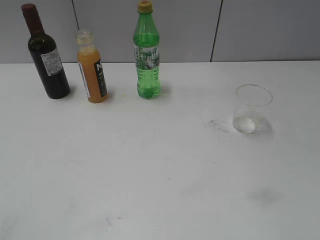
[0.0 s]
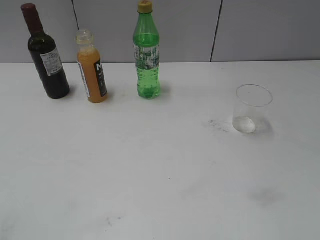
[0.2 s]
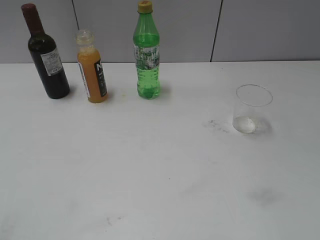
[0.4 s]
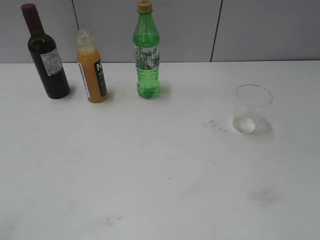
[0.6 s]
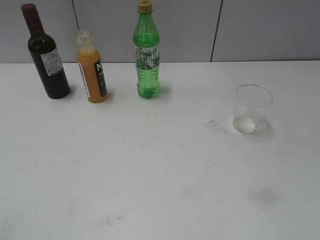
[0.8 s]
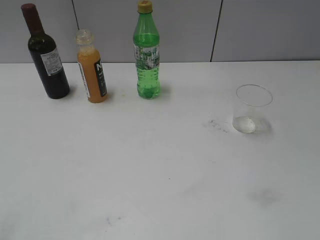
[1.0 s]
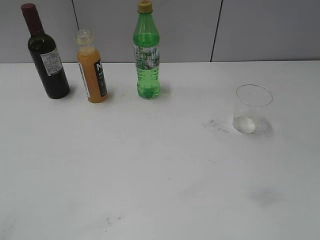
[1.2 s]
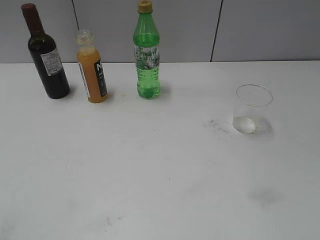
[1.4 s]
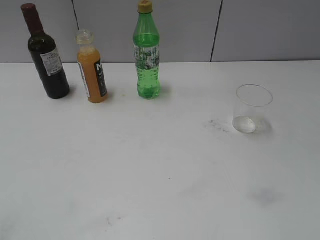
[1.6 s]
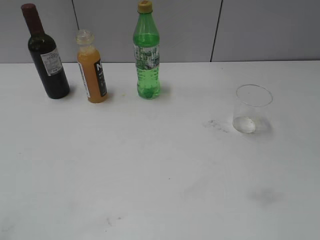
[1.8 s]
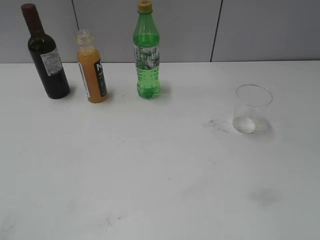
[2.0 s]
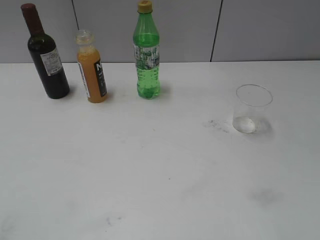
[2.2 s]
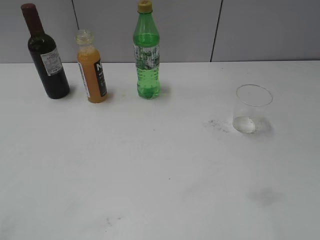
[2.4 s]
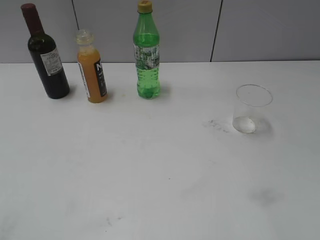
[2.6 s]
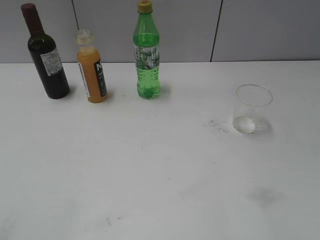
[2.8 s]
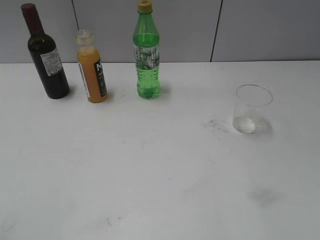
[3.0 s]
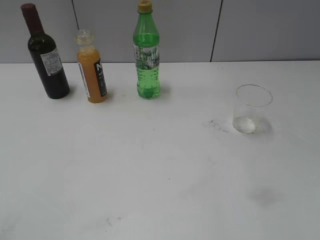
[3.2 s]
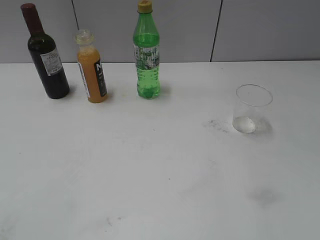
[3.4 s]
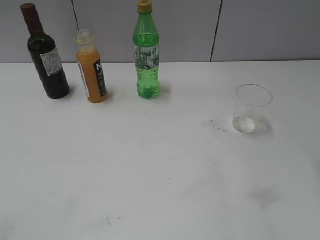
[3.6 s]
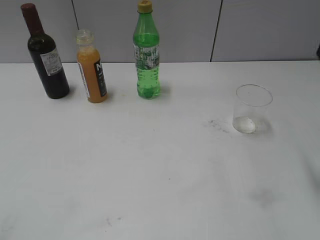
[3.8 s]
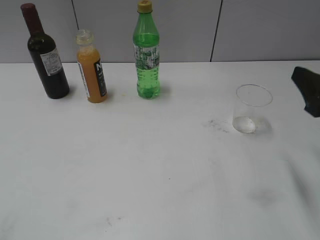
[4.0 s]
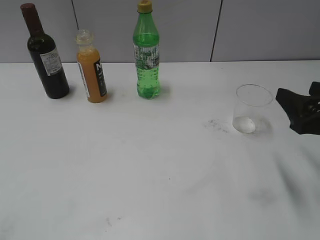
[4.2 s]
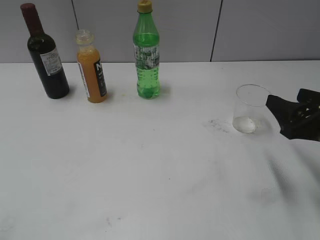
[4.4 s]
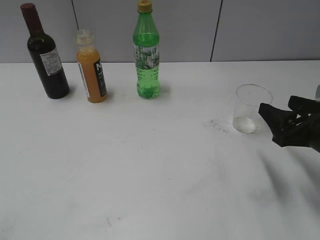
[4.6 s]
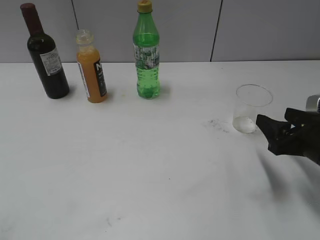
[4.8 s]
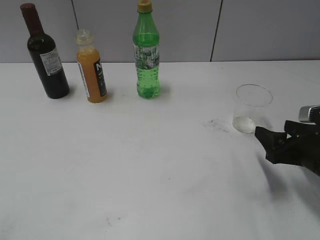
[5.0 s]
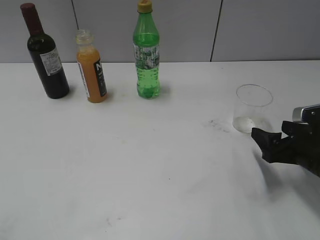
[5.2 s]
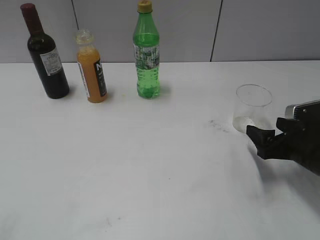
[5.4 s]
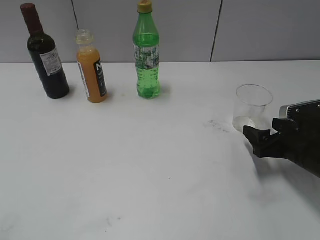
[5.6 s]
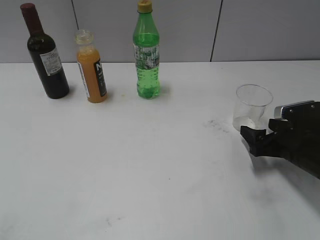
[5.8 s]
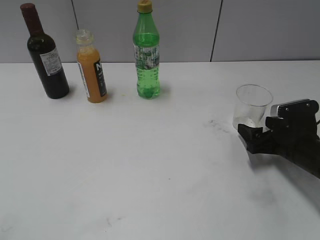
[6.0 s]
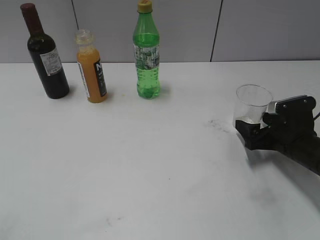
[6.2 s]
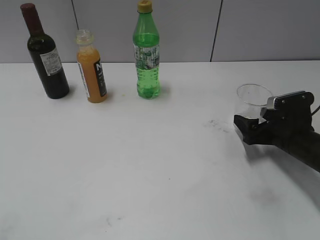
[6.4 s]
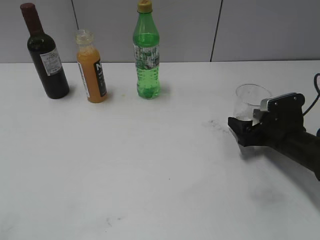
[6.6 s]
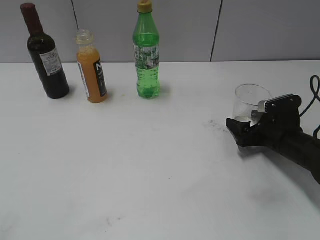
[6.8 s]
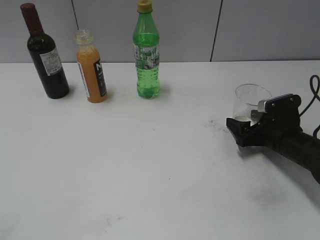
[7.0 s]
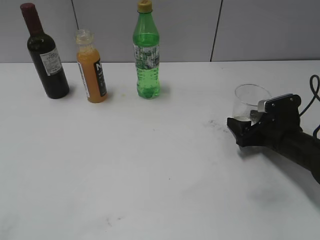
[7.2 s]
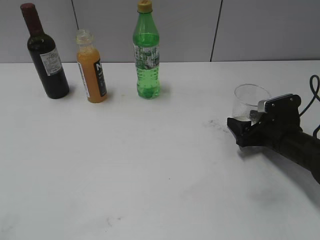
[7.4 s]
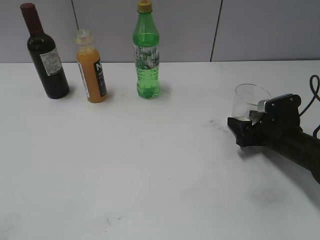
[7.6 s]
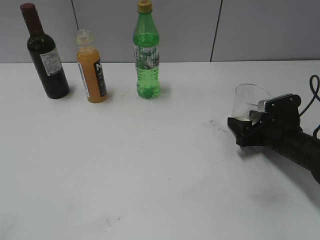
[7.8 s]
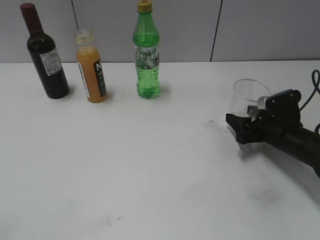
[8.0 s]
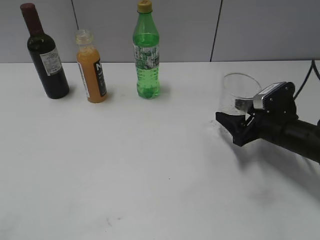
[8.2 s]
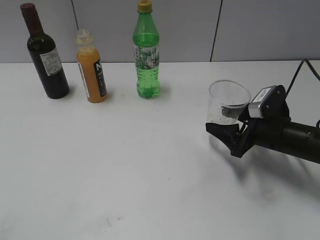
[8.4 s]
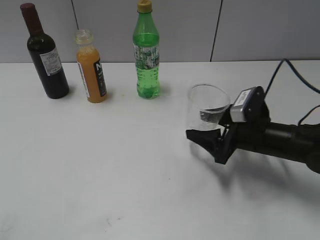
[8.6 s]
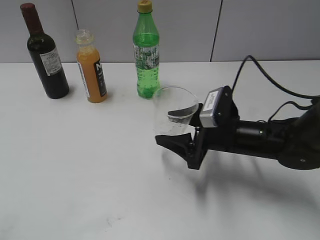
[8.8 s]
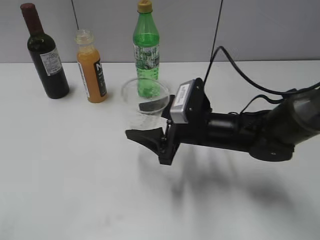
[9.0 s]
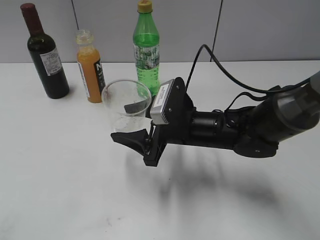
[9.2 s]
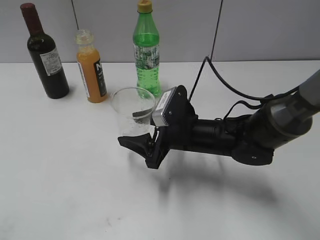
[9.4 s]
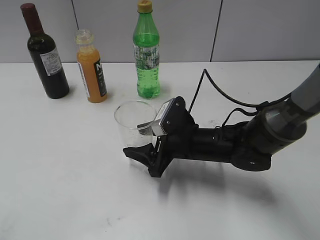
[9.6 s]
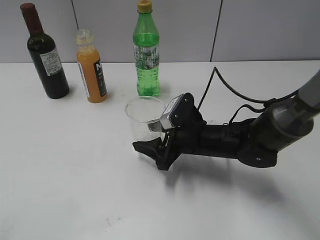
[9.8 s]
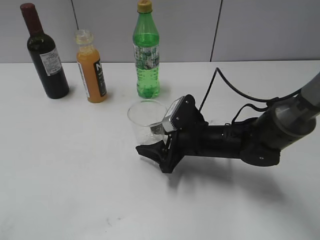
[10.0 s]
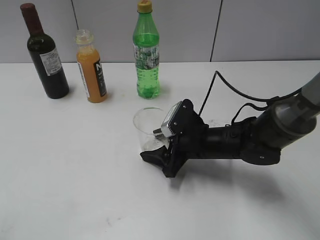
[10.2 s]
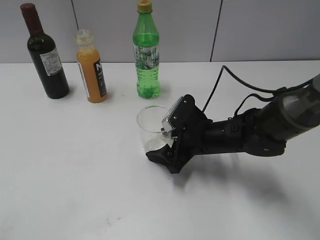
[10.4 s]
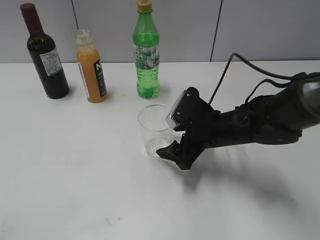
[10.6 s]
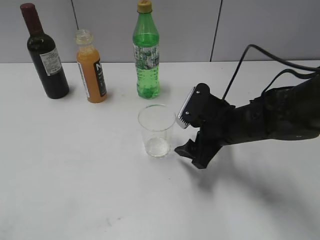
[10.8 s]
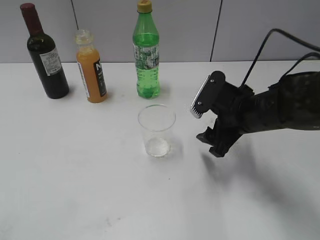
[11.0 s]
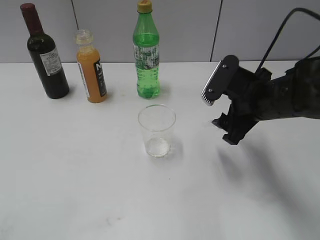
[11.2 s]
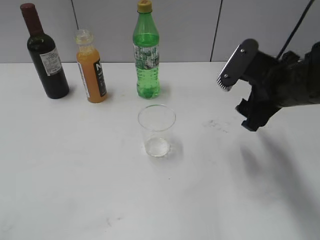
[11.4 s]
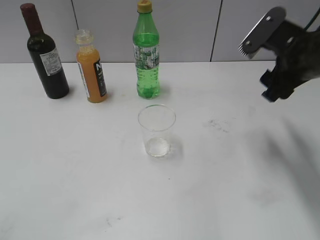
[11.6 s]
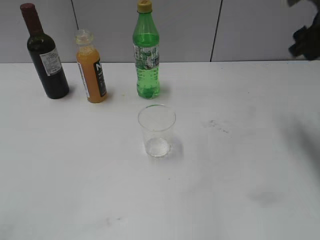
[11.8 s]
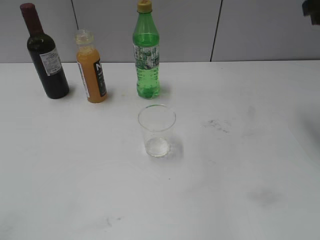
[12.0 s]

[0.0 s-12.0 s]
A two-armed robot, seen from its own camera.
Step, 3.8 to 7.6 s: Grasp the transparent cup with right gripper.
Step, 8.0 to 10.6 s: Place the transparent cup on the table with right gripper.
3.0 to 4.4 s: The right gripper moves downward and forward, approximately 20 cm.
4.4 to 6.0 s: The right gripper travels downward and forward by some 15 cm, and opens up.
6.0 to 7.6 s: The right gripper closes up.
7.6 to 9.0 s: The right gripper travels to the left by about 15 cm.
9.0 to 10.4 s: The right gripper opens.
10.4 to 12.0 s: The right gripper is displaced upward and to the right by some 30 cm, and closes up.

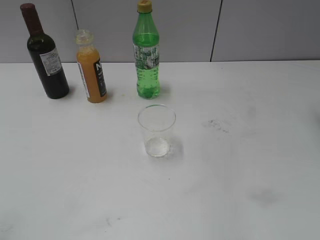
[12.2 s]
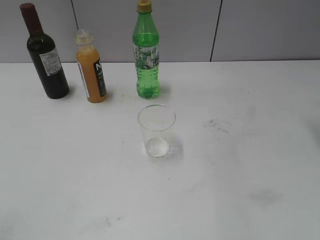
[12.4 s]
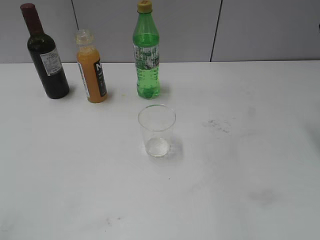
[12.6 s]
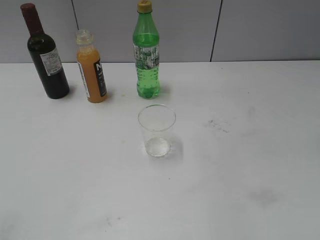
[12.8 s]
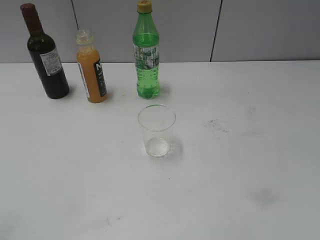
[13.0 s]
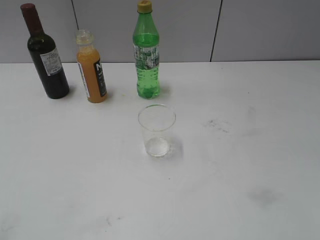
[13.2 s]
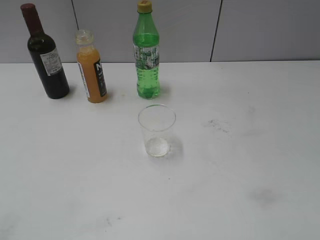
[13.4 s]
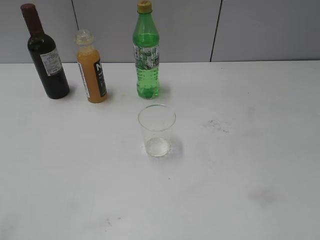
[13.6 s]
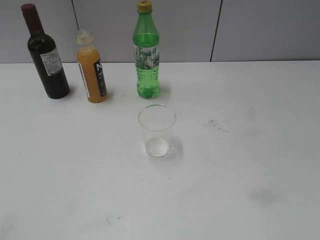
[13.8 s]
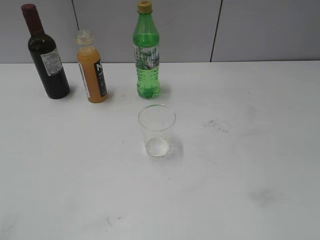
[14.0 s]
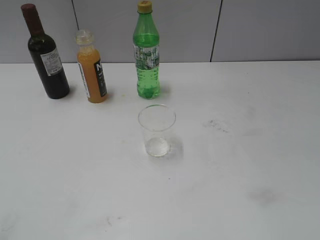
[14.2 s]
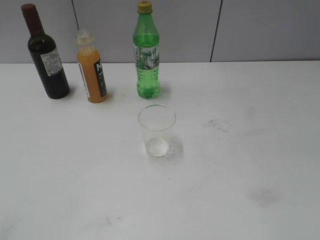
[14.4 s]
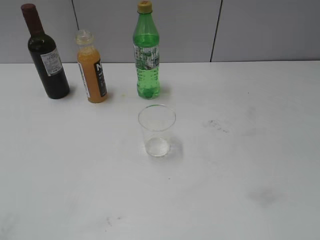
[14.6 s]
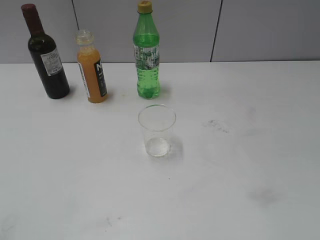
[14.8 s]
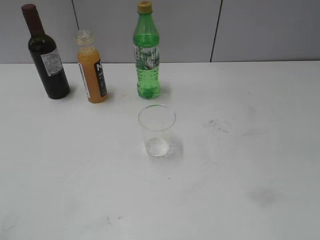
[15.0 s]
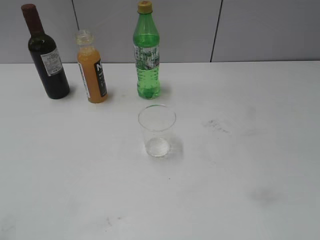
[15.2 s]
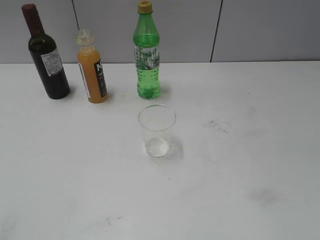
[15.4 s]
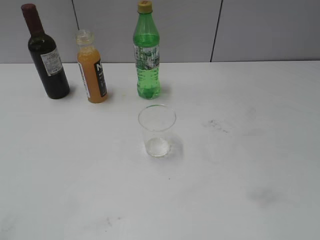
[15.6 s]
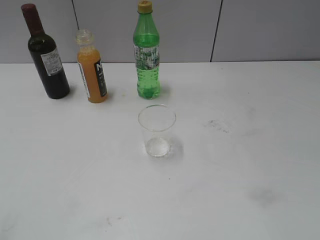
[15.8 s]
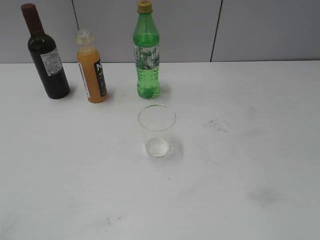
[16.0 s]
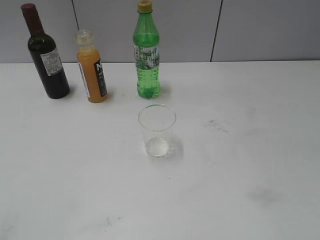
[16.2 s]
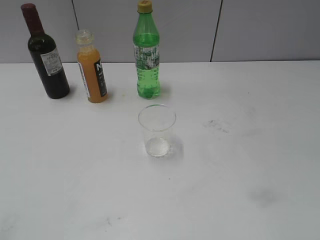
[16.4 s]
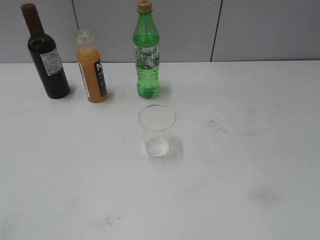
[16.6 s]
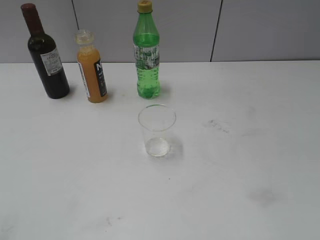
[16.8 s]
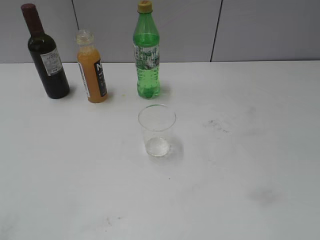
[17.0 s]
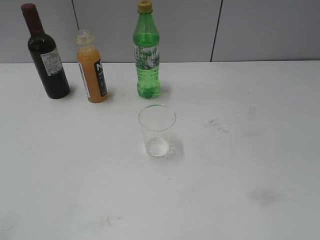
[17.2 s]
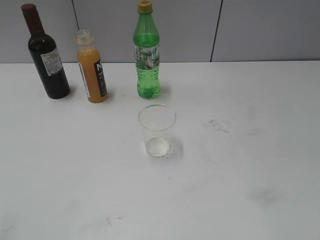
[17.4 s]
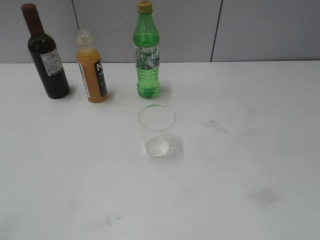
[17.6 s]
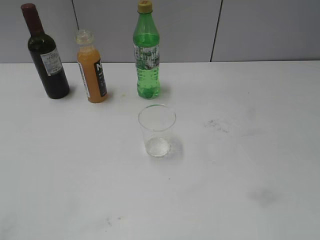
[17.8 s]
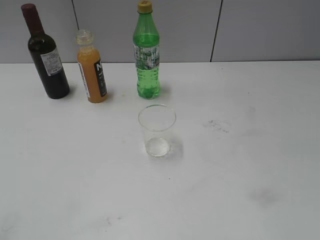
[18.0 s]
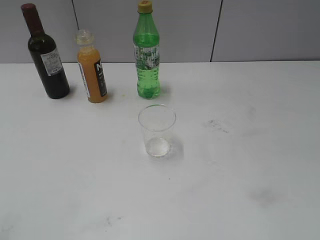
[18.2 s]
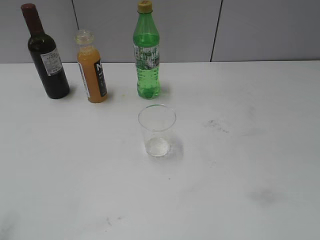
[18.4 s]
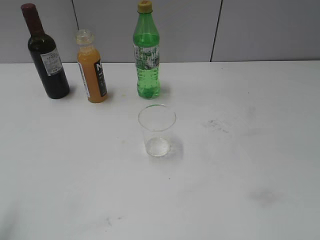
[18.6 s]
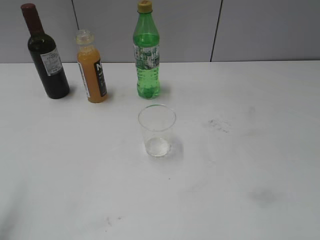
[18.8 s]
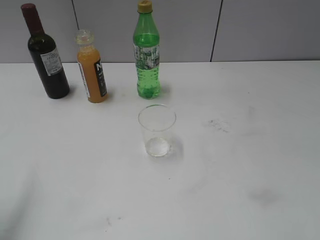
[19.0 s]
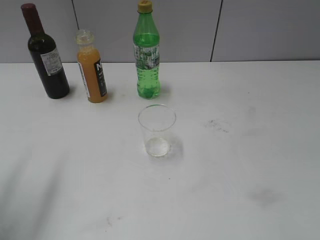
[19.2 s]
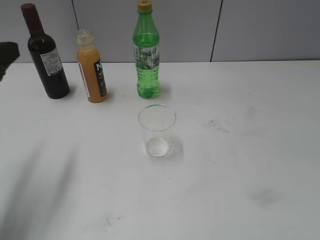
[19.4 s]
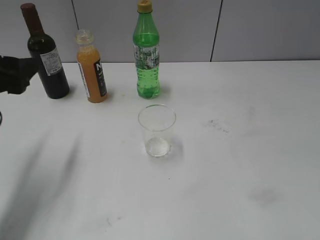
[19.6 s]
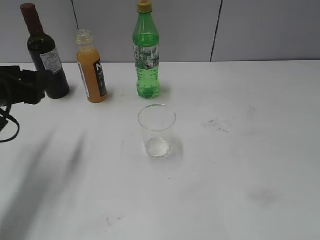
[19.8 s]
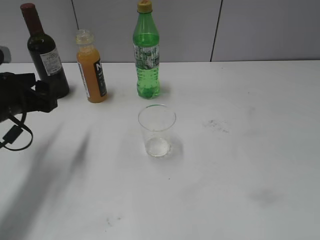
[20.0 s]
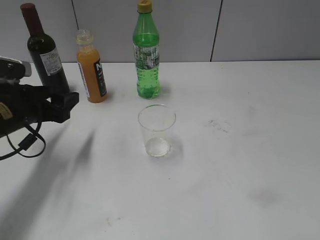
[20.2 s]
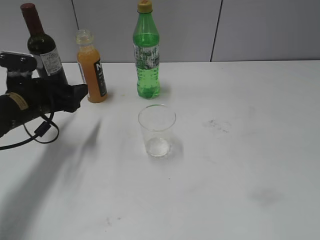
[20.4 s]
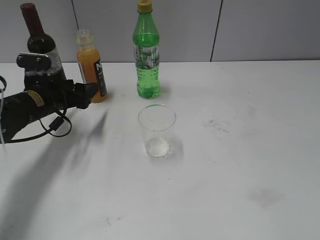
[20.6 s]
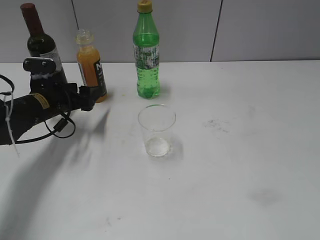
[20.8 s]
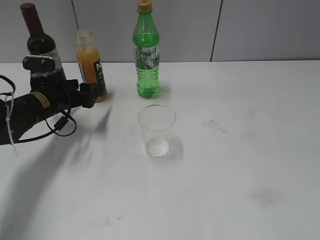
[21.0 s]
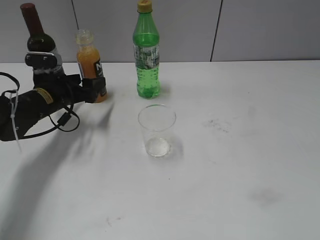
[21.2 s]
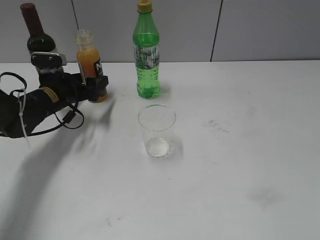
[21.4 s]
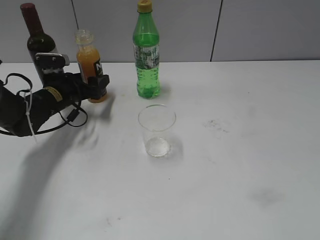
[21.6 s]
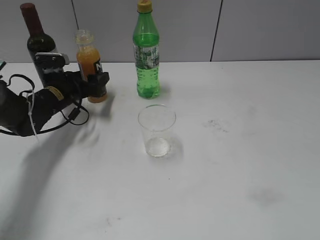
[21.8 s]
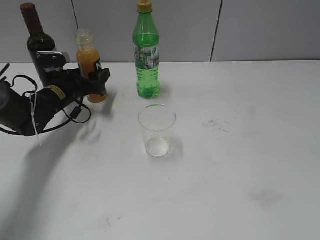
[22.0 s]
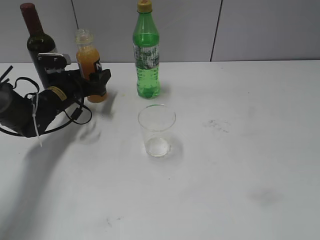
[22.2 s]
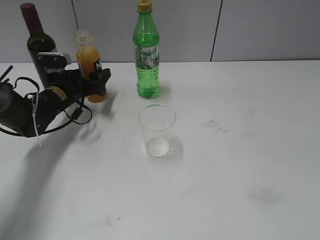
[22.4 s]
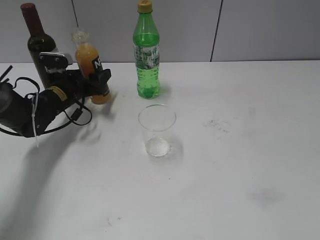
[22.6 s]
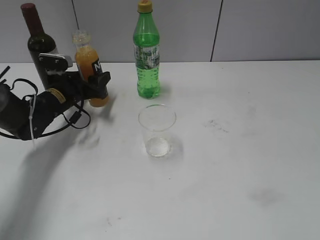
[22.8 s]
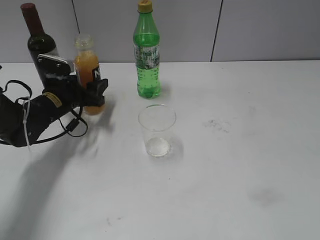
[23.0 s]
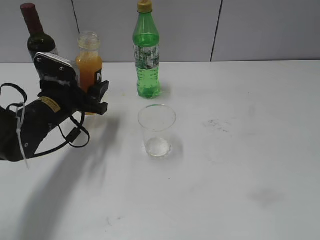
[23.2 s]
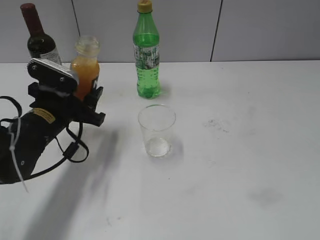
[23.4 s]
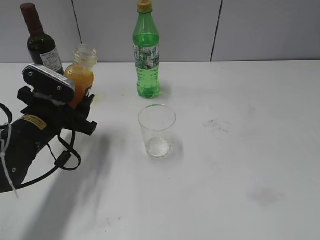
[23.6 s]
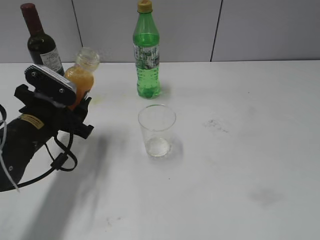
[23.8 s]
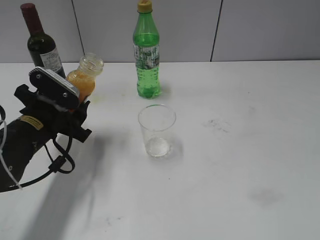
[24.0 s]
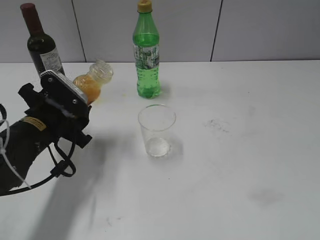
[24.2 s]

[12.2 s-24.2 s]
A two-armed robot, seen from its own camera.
Step, 12.2 to 22.6 s: Grasp the bottle with orange juice with left gripper.
15.2 to 16.6 s: The two grippers keep their place.
18.2 to 19.8 s: The left gripper goes about 25 cm forward.
19.8 to 21.2 s: The left gripper moves forward and downward, roughly 15 cm, and opens its fingers.
21.2 to 22.6 s: The left gripper ends up roughly 5 cm from where it was, and closes up.
22.6 to 24.2 s: The left gripper moves backward, roughly 15 cm.
